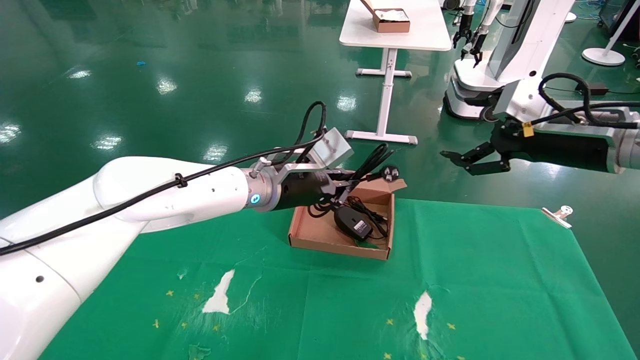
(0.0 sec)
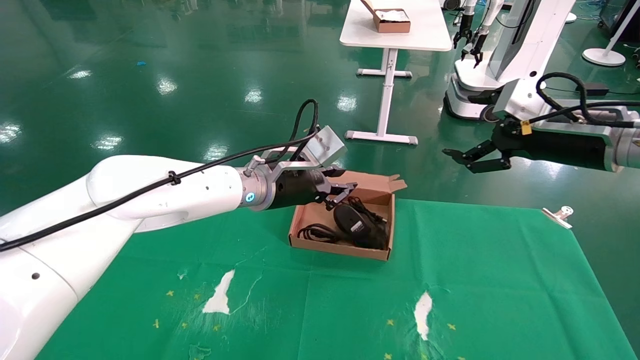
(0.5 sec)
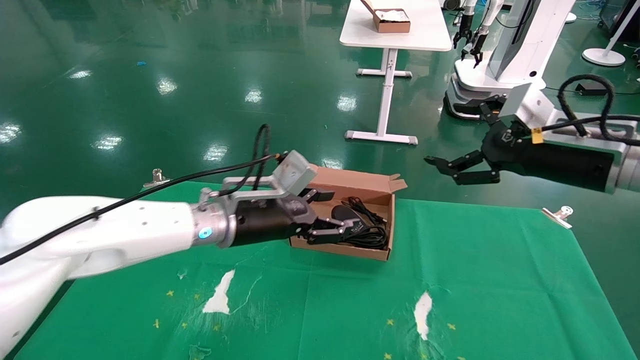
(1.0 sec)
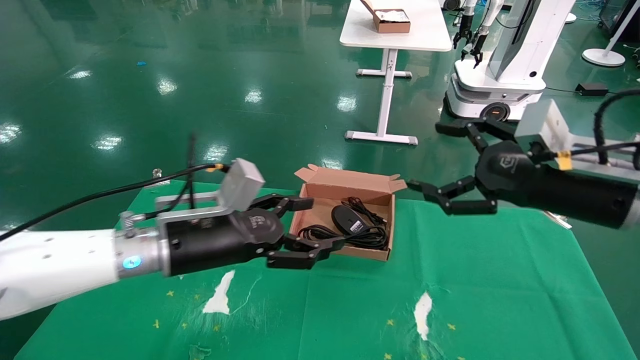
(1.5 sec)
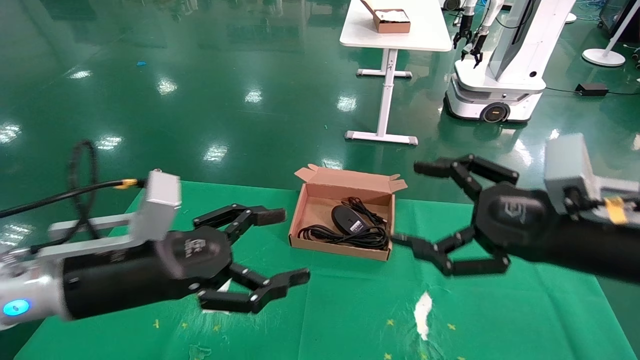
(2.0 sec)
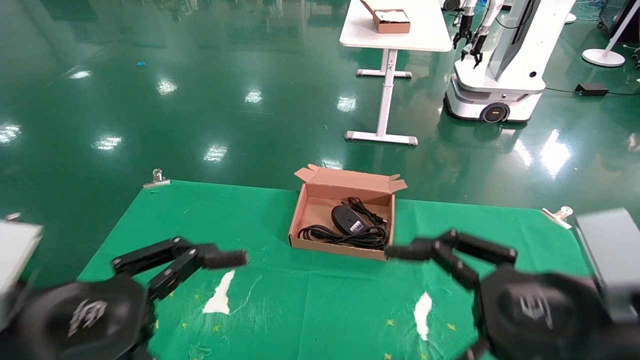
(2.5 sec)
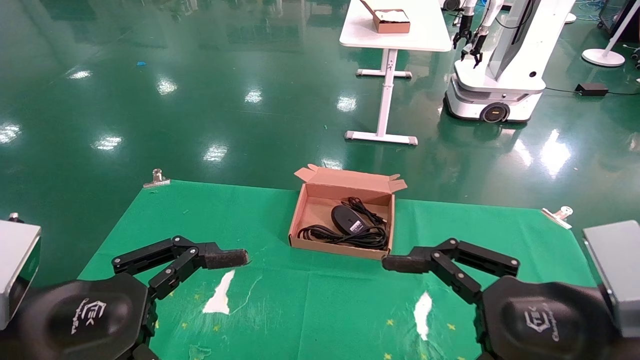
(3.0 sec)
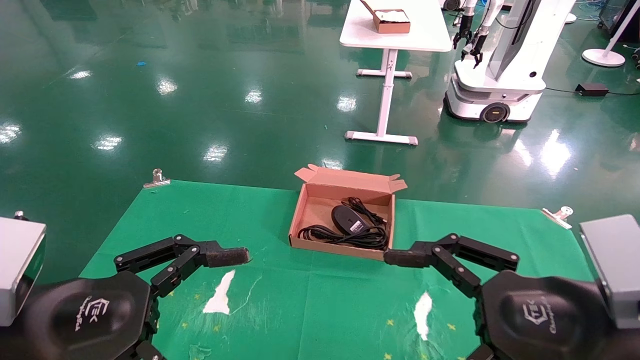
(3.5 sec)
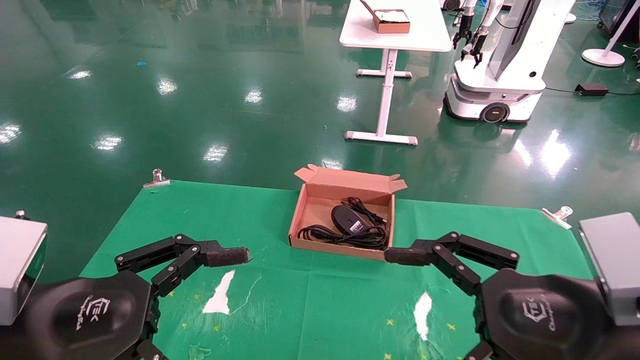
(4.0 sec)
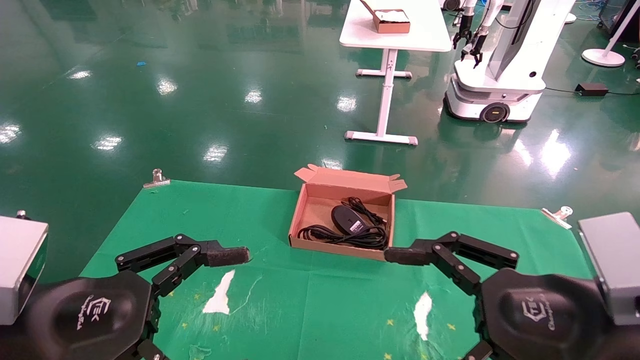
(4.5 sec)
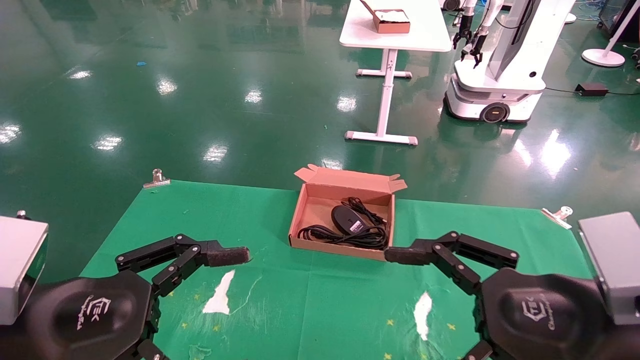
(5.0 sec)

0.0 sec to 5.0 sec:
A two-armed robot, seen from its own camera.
0.0 sec to 2.5 sec: The right gripper shifts some 25 cm backward, downward and to the left. Meanwhile the left gripper travels backward and to the left by roughly 30 cm, and opens up.
2.5 sec to 5.0 sec: There are only small adjustments of the grippers.
